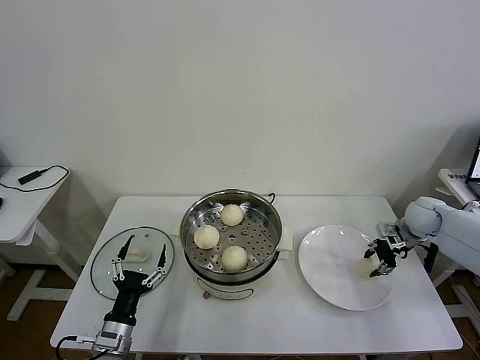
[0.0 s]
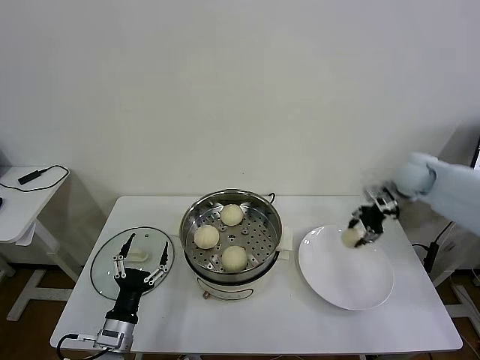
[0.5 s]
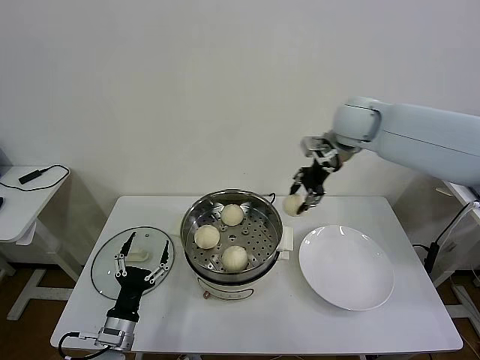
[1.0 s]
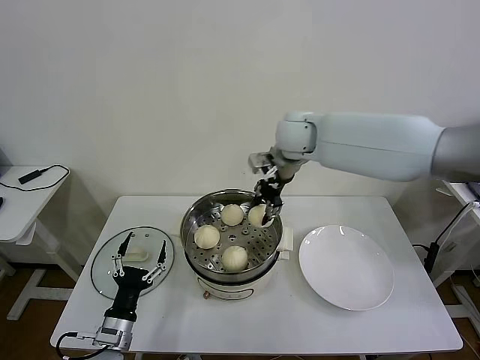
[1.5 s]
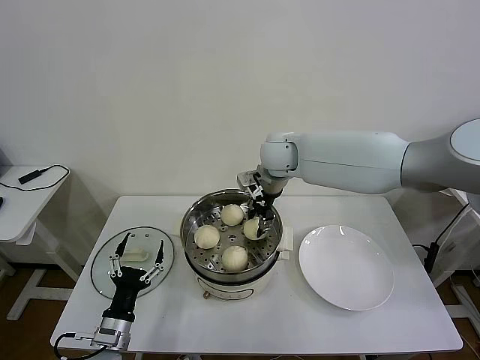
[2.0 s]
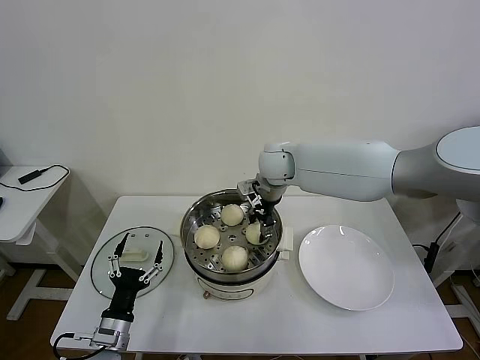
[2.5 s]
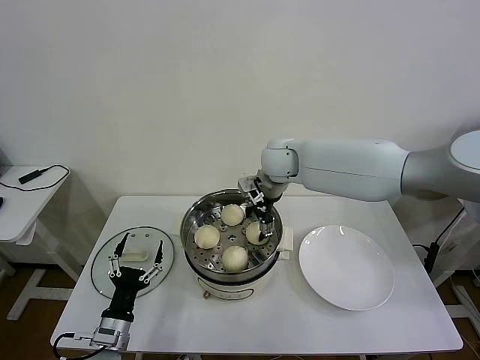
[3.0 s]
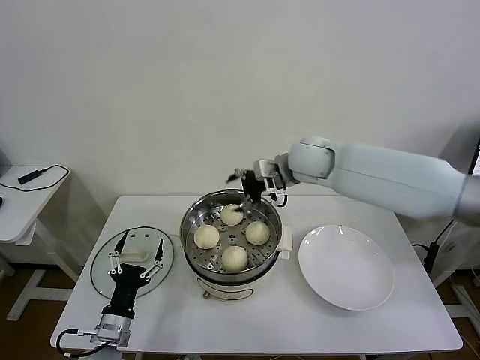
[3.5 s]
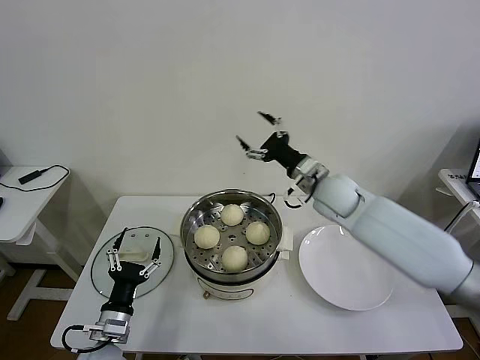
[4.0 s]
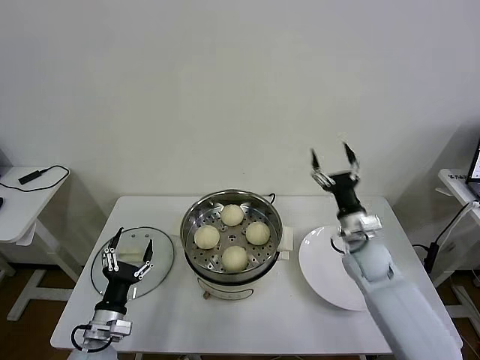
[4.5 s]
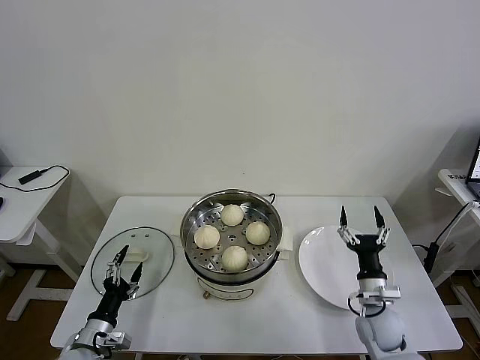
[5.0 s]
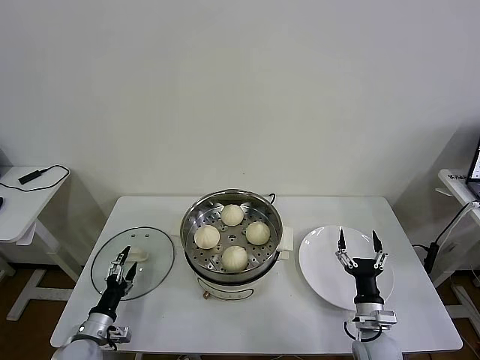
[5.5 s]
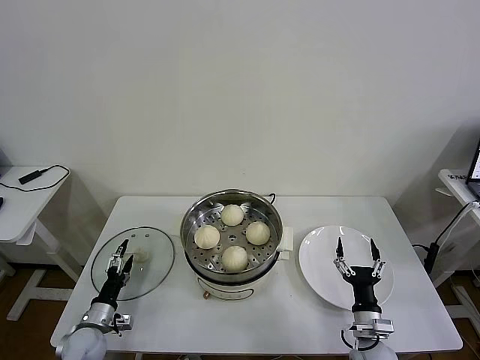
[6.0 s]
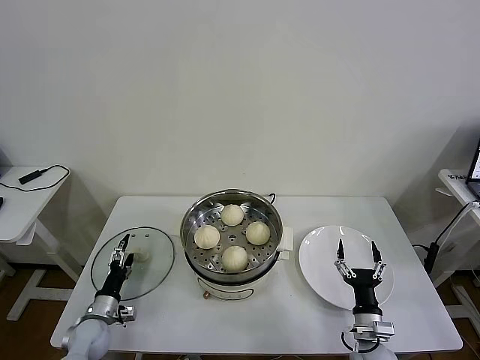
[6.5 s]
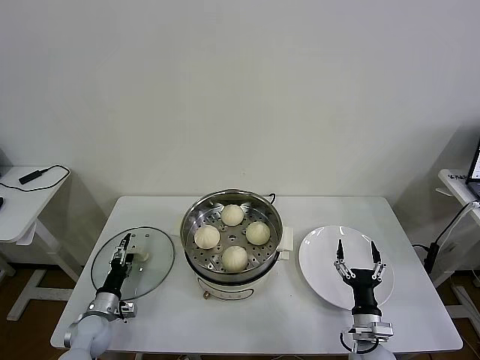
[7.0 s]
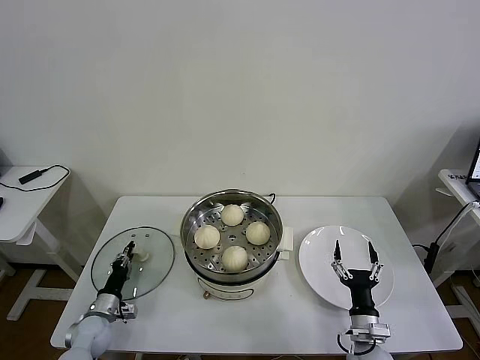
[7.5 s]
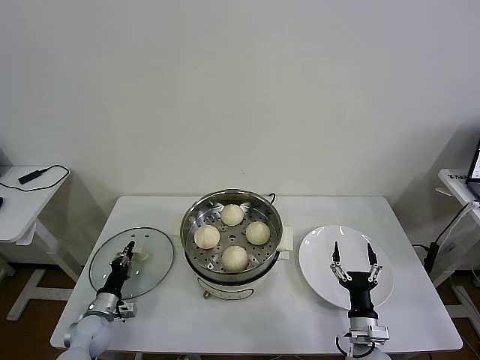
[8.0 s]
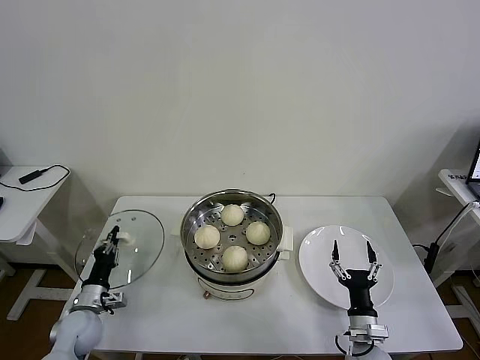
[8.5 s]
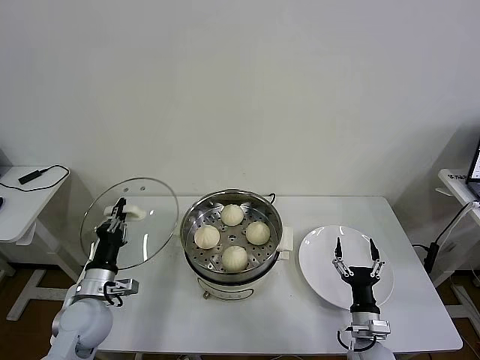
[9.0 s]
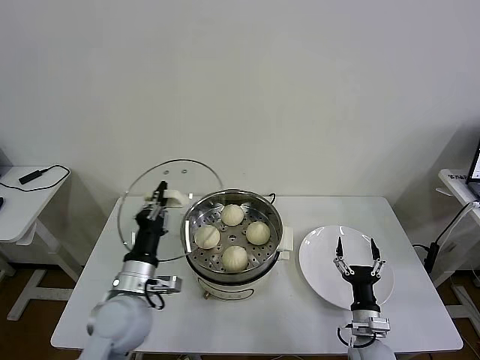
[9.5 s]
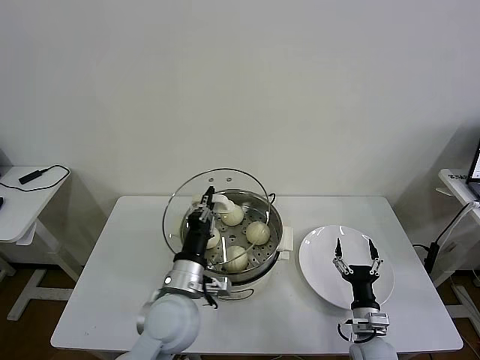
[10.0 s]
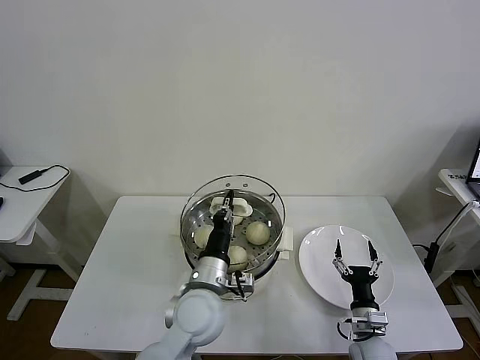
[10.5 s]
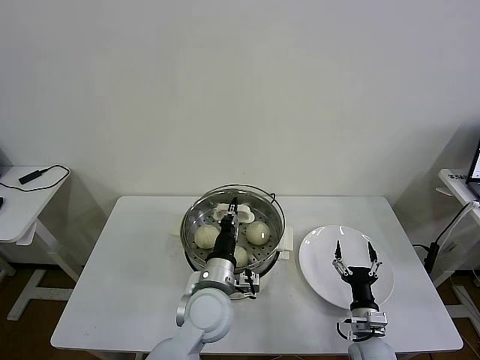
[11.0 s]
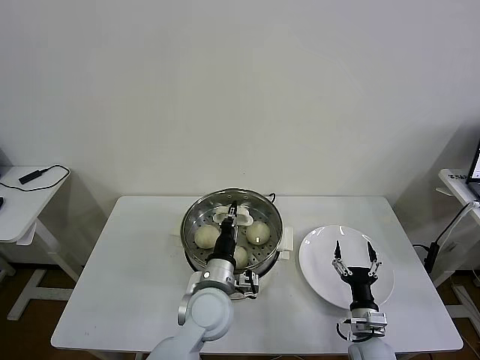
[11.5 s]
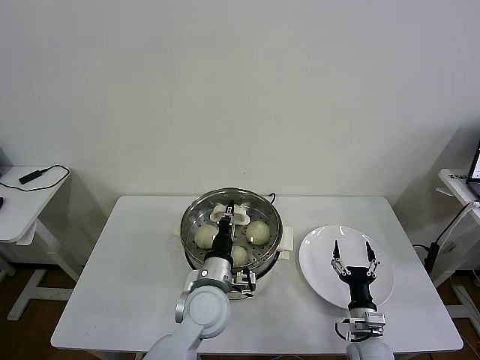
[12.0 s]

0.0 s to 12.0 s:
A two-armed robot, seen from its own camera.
Task of the whole recording: take steamed baozi put them in steamer then cover it.
Step, 0.0 to 2.5 s: Place the baozi on the steamer with right gripper.
Step, 3.5 to 7.5 s: Grasp the pot lid with left gripper.
0.0 to 2.0 s: The right gripper travels to the left by roughly 35 cm.
2.0 to 4.0 s: The right gripper travels to the right, backward and downward by about 15 cm, and opens up.
4.0 to 6.0 s: The left gripper is displaced downward, to the left and forward by some 15 cm; the right gripper moves downward and backward, roughly 40 cm.
6.0 to 8.0 s: The left gripper closes.
8.0 to 10.0 s: The left gripper moves to the right and upward, roughly 35 cm.
10.0 to 12.0 s: The left gripper shifts roughly 5 cm to the right.

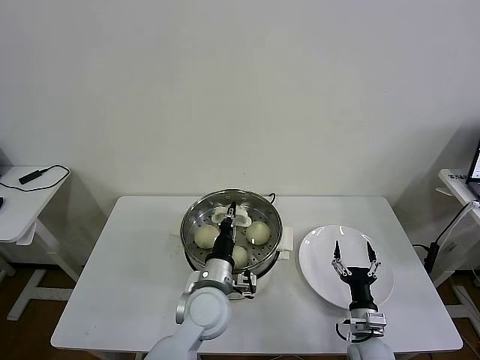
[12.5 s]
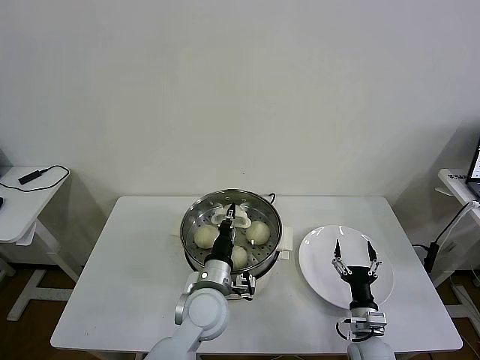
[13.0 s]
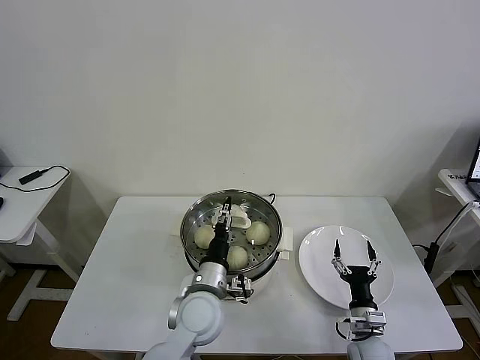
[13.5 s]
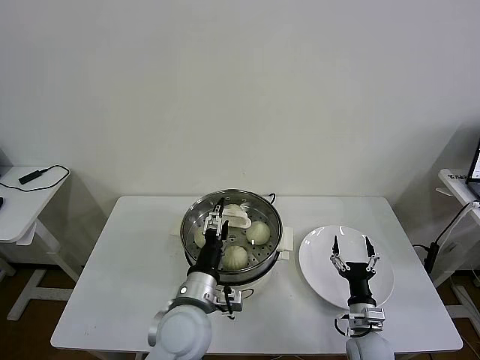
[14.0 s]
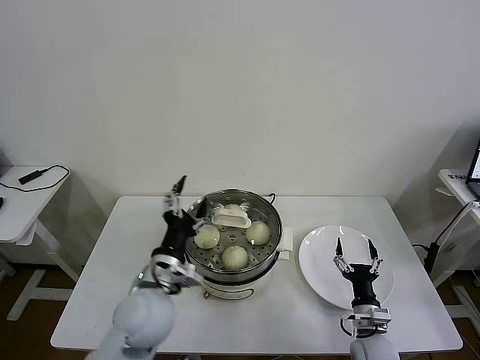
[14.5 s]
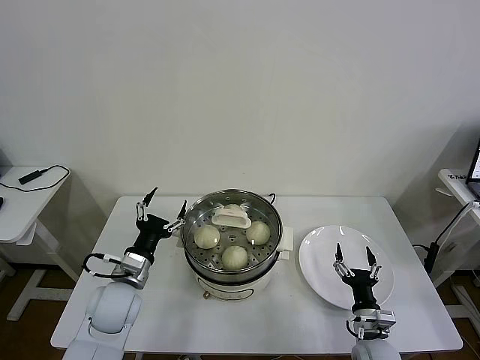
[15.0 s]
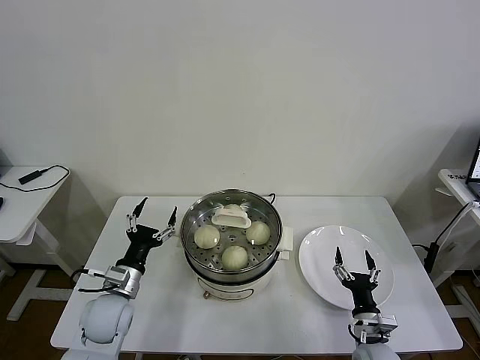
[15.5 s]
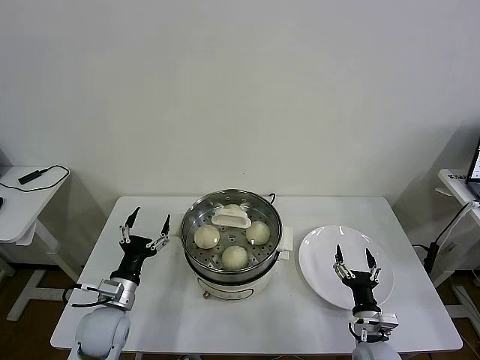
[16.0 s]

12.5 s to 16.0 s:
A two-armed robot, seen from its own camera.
Task of the whole recording: take steamed baozi put them in steamer then cover it.
12.5 to 14.5 s: The left gripper is displaced to the left and upward by approximately 10 cm, and opens its fingers.
14.5 to 16.0 s: The left gripper heads to the left and downward, covering some 20 cm.
